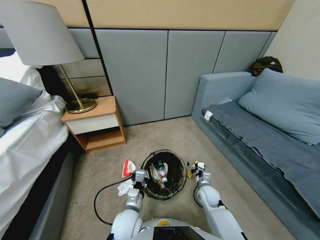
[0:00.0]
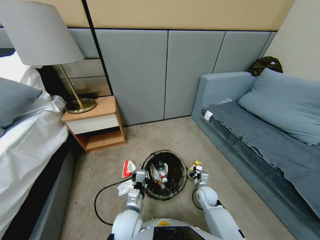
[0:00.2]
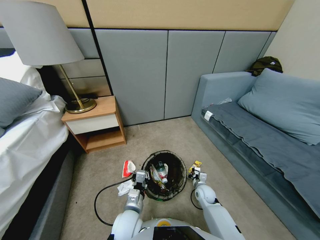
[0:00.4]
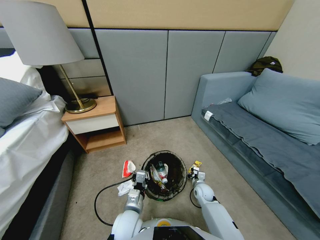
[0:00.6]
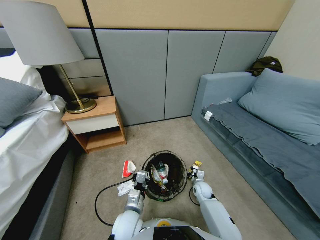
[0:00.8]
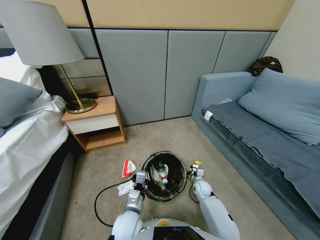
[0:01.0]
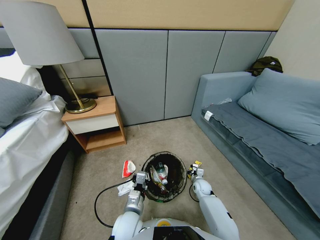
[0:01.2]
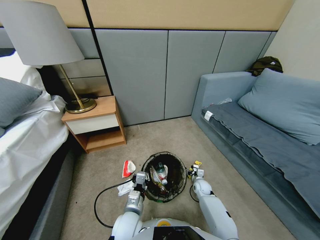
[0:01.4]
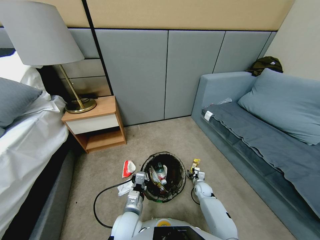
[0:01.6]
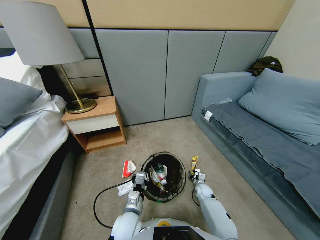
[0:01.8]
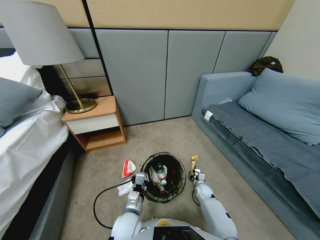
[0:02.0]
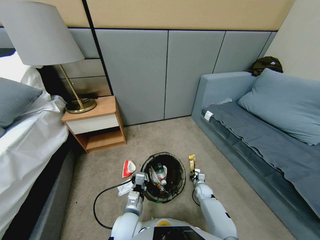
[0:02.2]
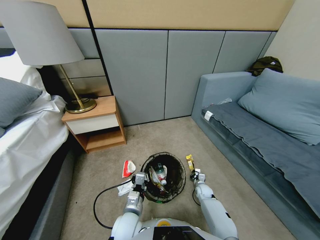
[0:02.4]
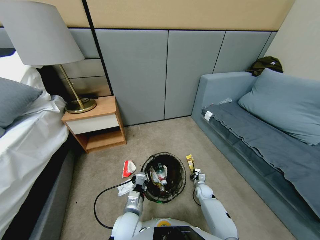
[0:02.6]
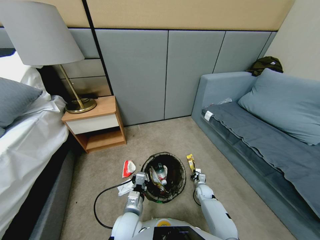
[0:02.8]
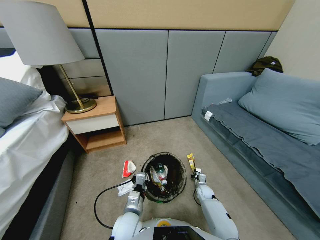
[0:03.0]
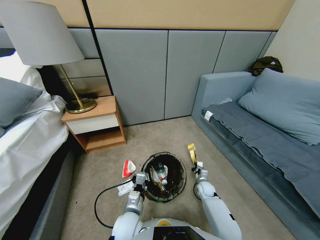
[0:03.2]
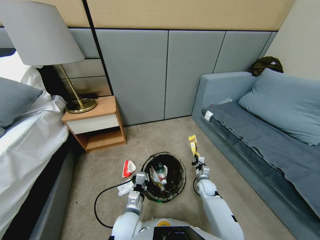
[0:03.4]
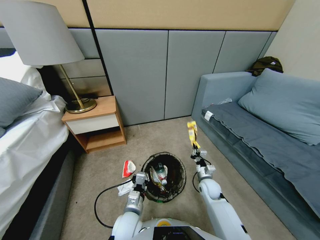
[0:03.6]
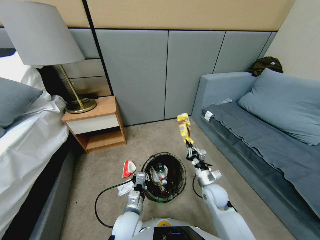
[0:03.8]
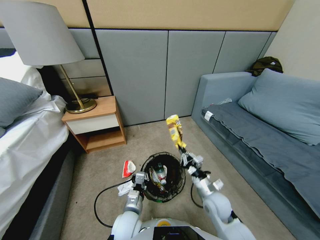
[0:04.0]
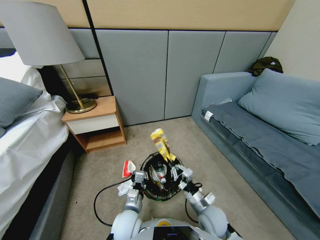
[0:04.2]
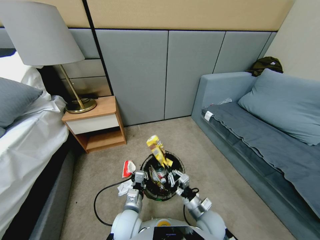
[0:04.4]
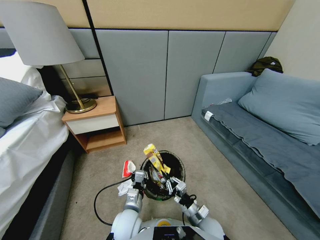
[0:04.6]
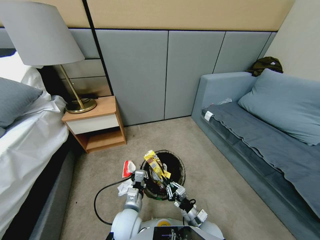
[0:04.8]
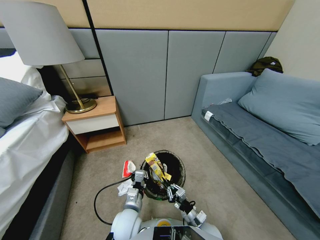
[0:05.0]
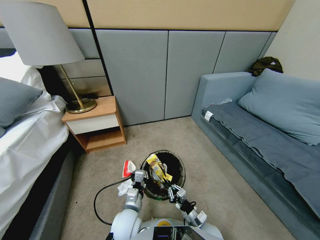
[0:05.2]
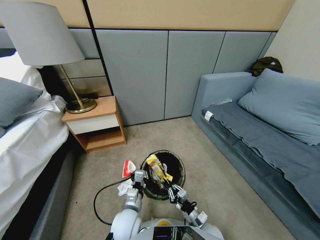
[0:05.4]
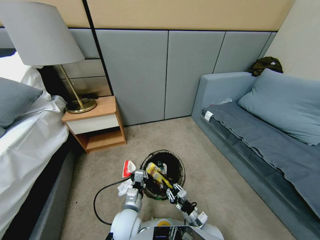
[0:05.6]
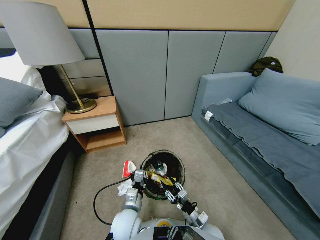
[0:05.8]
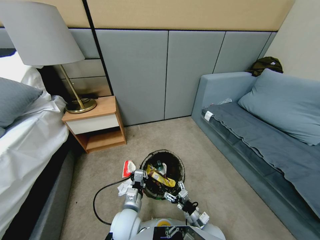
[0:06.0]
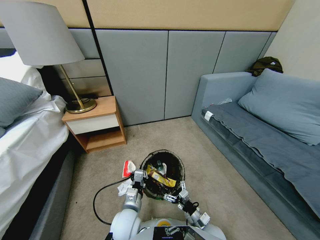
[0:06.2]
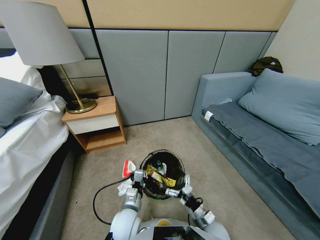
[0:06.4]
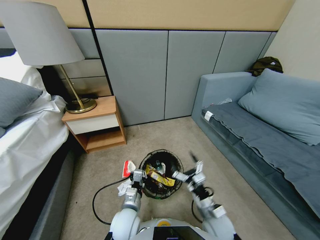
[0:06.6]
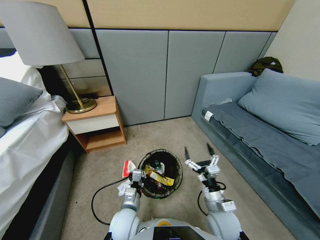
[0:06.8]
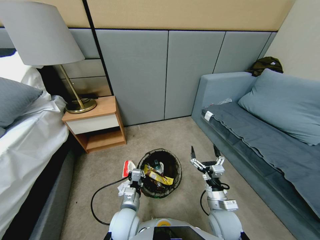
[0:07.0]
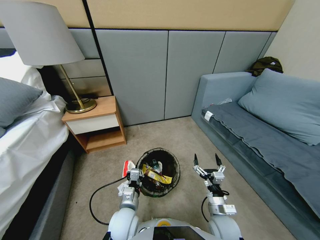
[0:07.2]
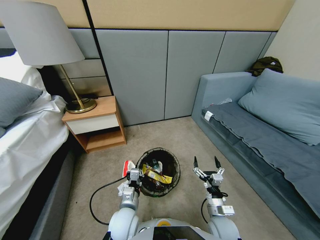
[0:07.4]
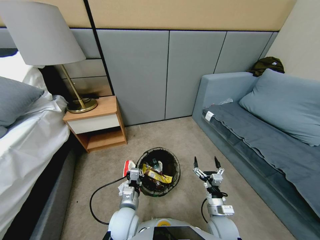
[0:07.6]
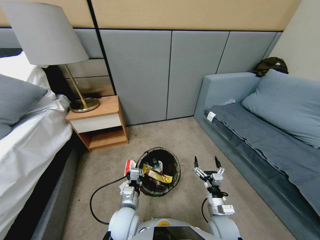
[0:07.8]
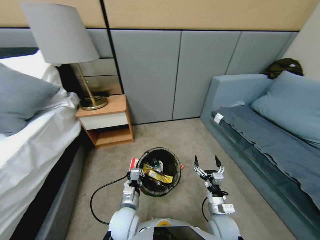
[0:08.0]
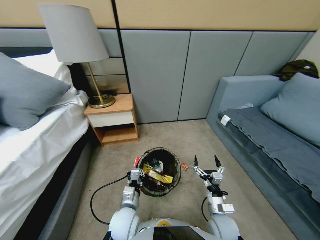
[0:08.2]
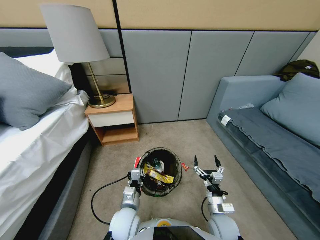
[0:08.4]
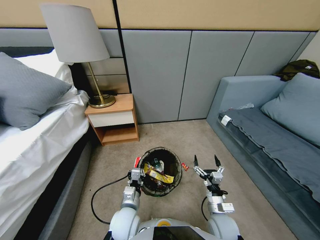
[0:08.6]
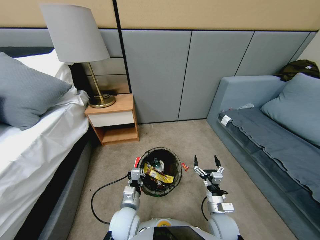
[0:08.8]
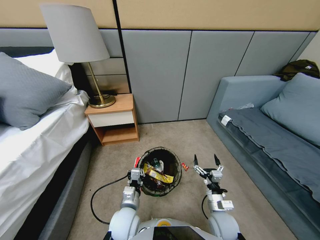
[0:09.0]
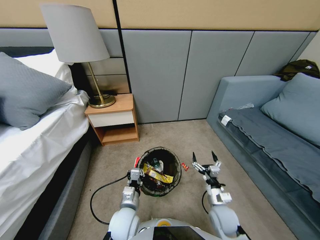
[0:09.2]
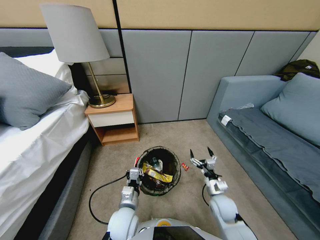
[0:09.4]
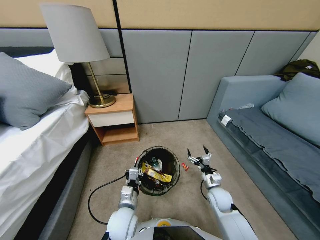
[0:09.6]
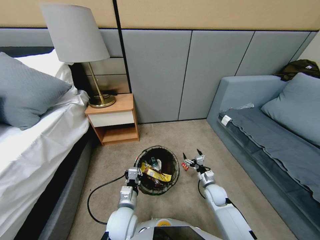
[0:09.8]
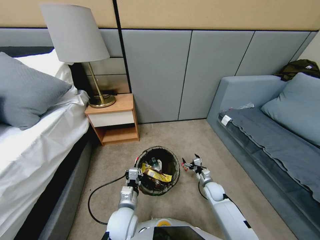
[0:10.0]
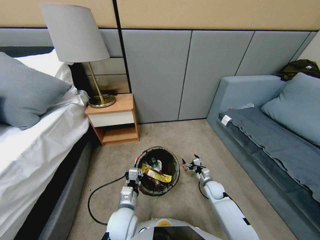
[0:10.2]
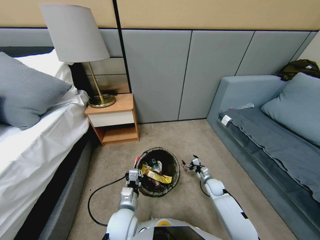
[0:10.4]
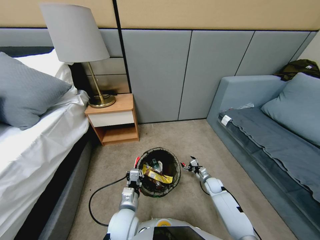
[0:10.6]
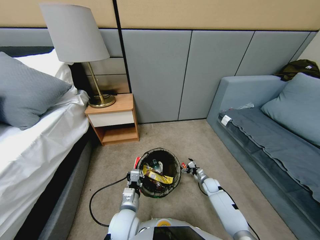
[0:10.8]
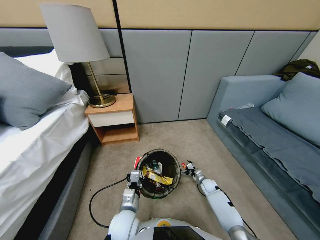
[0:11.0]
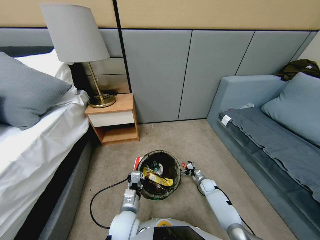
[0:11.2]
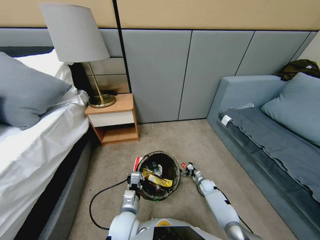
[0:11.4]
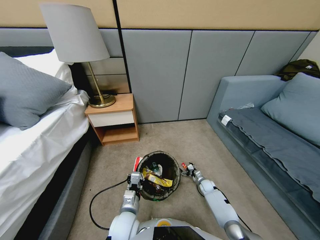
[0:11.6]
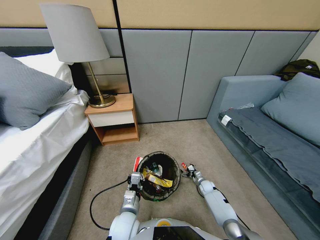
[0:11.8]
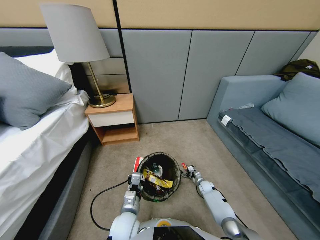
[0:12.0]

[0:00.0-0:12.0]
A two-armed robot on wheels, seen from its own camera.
Task of the whole recording: Pick up the trash bin, then pick up the garbage from the floor and place it into the trash bin.
0:00.0 to 0:01.6: The right gripper is displaced downward by about 10 cm, and closes up.
0:01.6 to 0:03.0: The right gripper closes its fingers.
0:03.0 to 0:04.4: The right gripper goes about 25 cm backward, upward and to the left.
0:04.4 to 0:06.0: The right gripper goes approximately 5 cm downward, and opens up.
0:06.0 to 0:07.6: The right gripper heads upward, covering about 5 cm.
0:09.0 to 0:10.4: The right gripper travels forward, downward and to the right by about 20 cm.
0:10.4 to 0:12.0: The right gripper is displaced downward by some 10 cm.

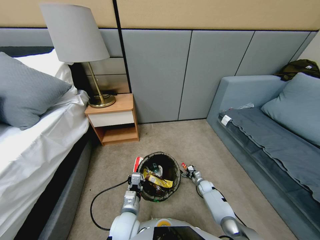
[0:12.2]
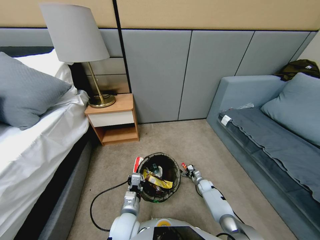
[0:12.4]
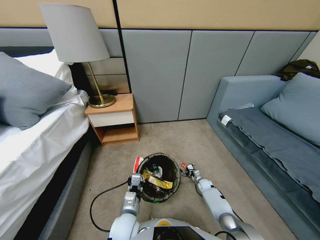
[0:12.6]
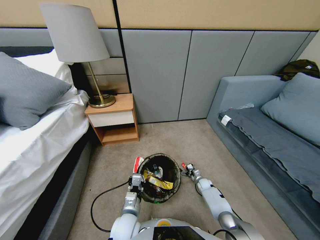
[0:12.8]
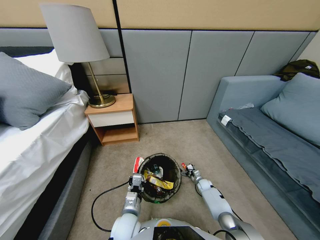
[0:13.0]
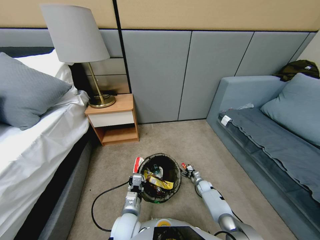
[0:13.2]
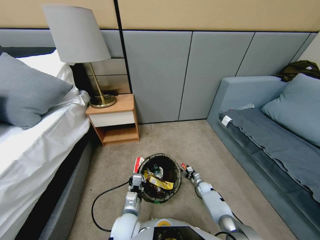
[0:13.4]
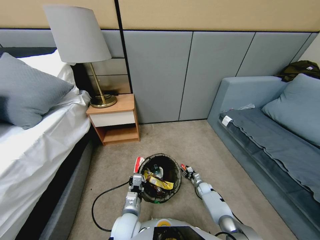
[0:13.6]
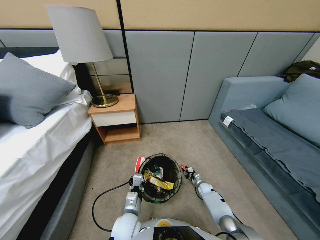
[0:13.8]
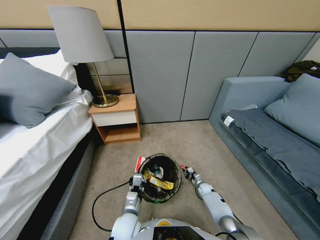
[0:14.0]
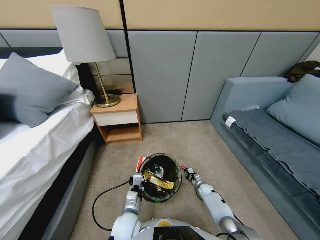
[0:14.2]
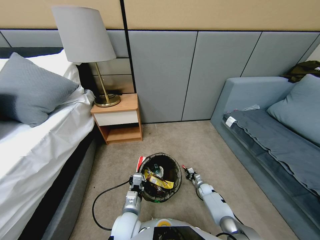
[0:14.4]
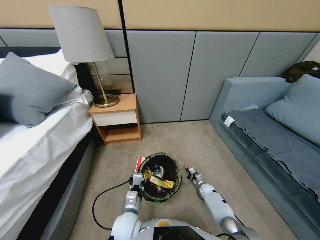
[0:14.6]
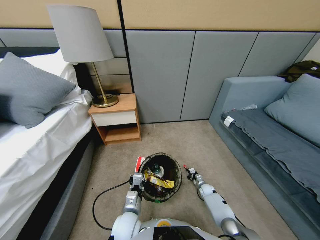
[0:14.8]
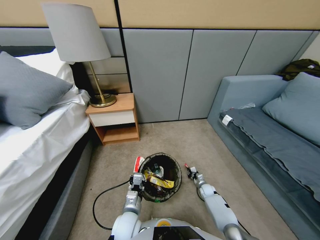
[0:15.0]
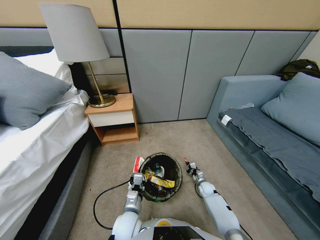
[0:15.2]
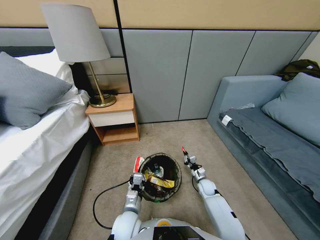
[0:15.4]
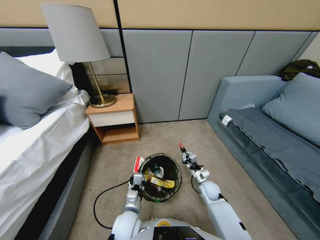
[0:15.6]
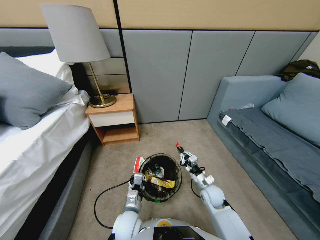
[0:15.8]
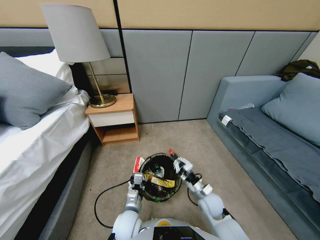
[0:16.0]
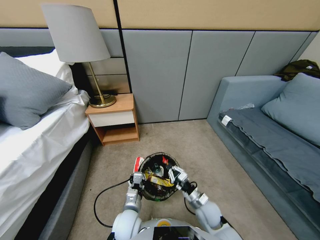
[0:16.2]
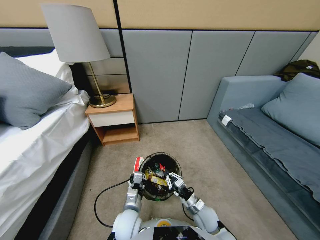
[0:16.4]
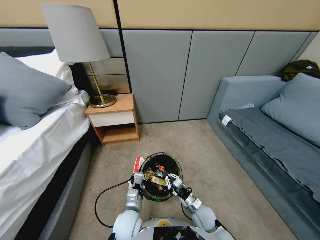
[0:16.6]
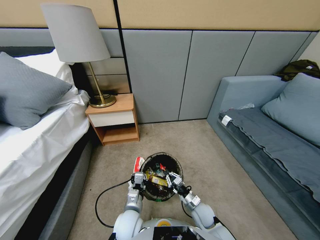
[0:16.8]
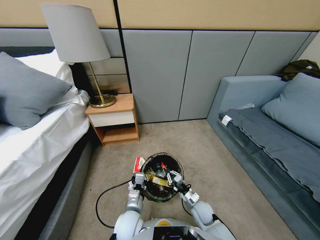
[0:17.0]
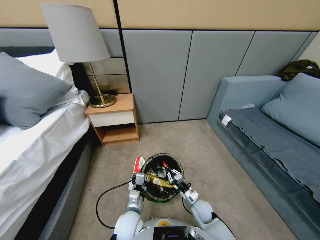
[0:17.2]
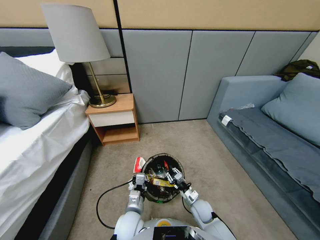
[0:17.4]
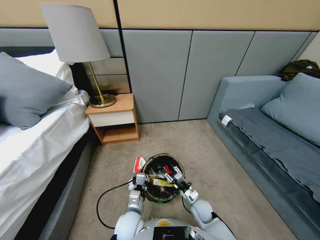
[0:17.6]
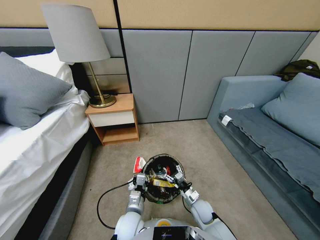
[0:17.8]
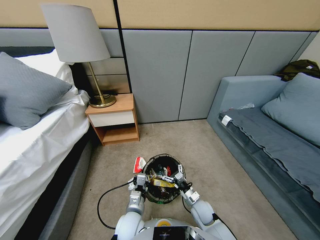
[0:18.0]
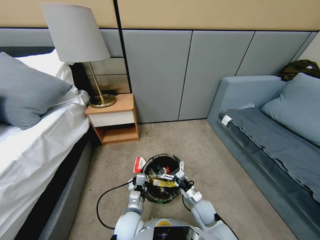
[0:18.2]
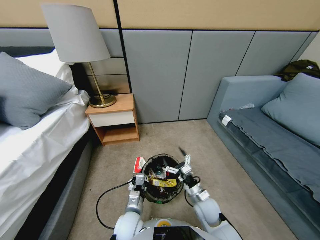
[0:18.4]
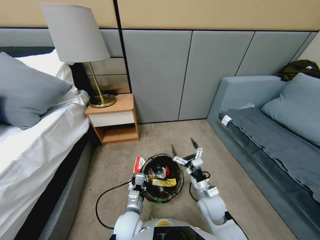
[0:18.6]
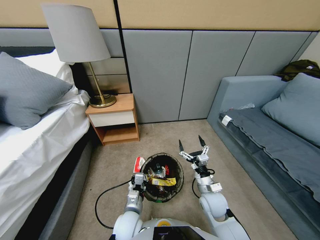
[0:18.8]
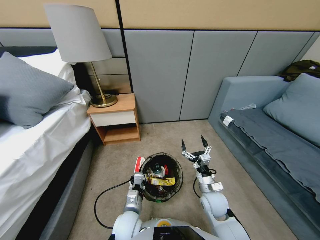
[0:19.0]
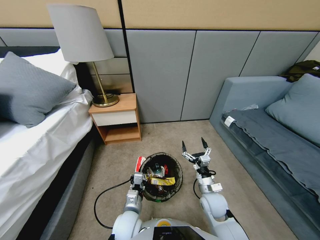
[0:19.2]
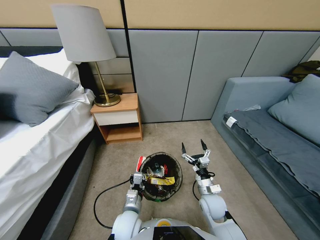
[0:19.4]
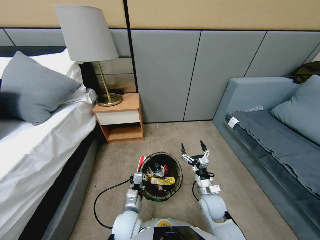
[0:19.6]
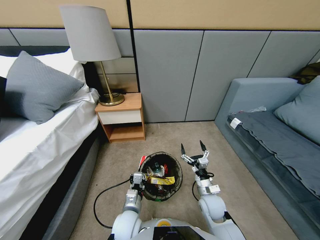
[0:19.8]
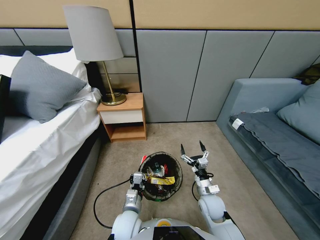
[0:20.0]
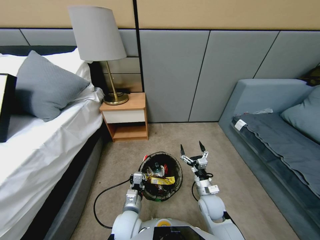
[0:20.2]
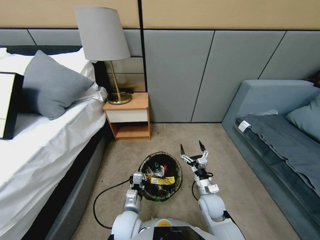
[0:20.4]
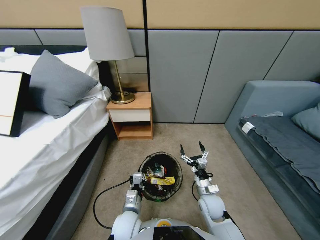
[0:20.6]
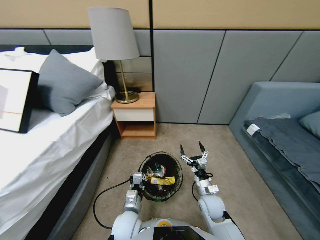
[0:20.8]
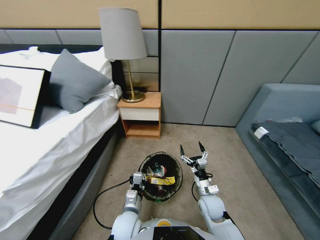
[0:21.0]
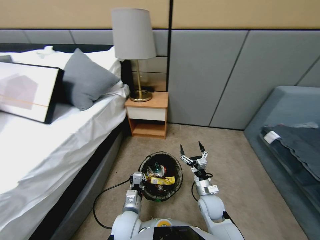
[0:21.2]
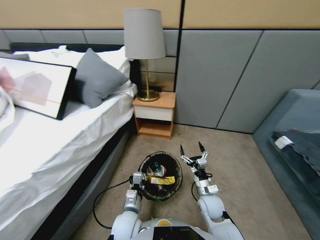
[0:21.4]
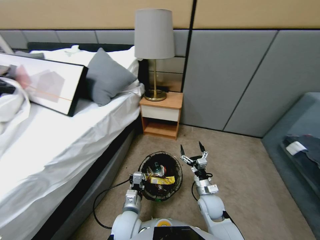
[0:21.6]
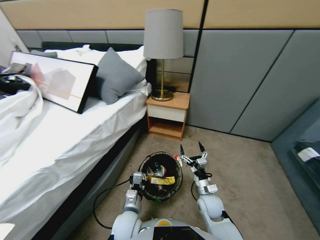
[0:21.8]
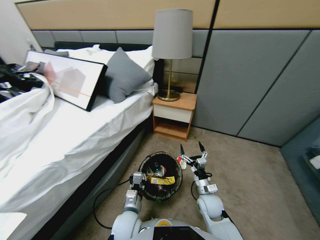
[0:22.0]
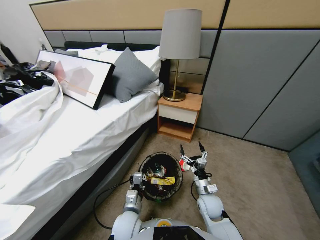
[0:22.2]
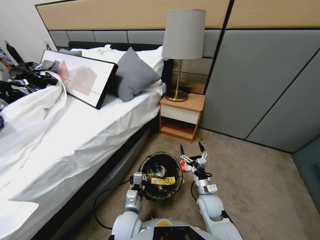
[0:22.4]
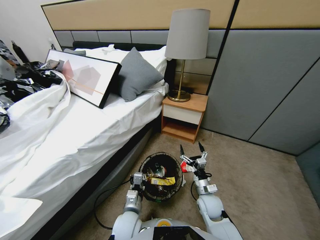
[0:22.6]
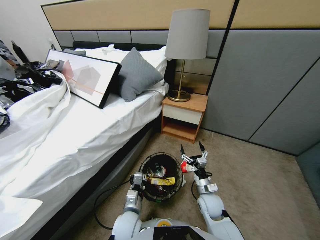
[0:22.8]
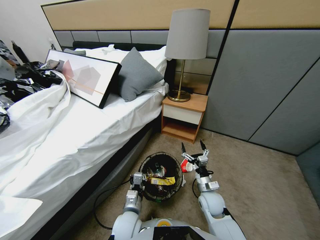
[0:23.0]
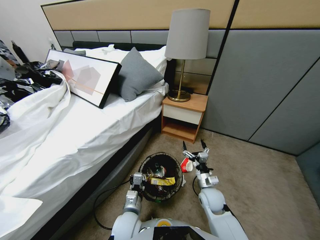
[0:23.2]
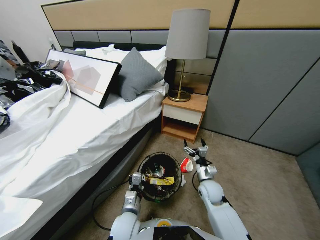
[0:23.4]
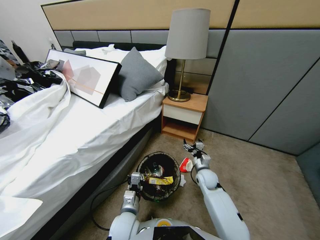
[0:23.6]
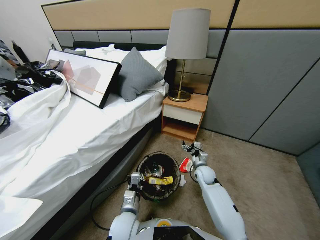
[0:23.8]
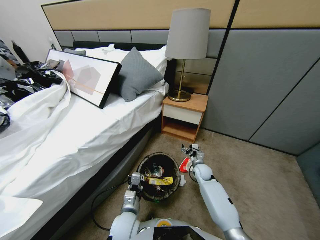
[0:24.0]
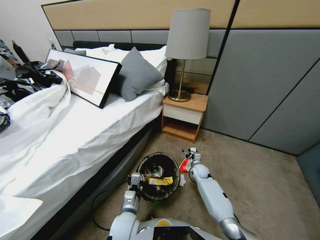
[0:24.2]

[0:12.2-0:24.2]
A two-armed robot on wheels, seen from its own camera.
Task of the whole recording: Pick up the trash bin, then pick up the garbage from the floor and place it into the trash bin.
0:12.2 to 0:13.8: The right gripper closes up.
0:13.8 to 0:15.2: The right gripper travels upward by about 10 cm.
0:15.2 to 0:16.6: The right gripper goes about 15 cm backward, to the left and upward.
0:16.6 to 0:18.2: The right gripper travels upward by some 5 cm, and opens its fingers.
0:22.6 to 0:24.2: The right gripper shifts approximately 20 cm forward and downward.
